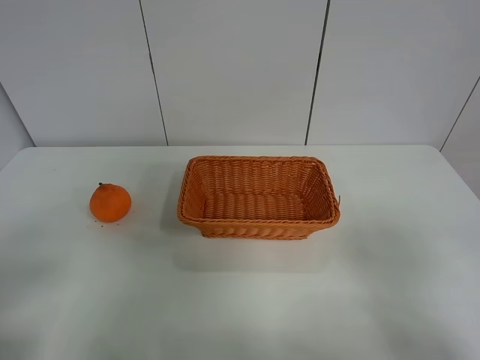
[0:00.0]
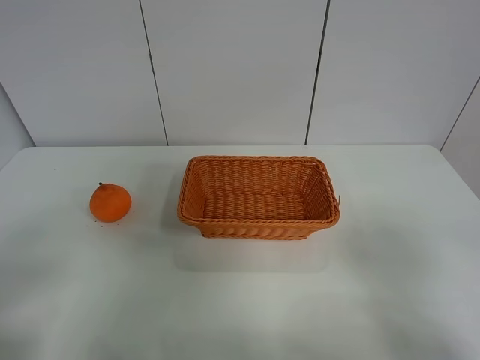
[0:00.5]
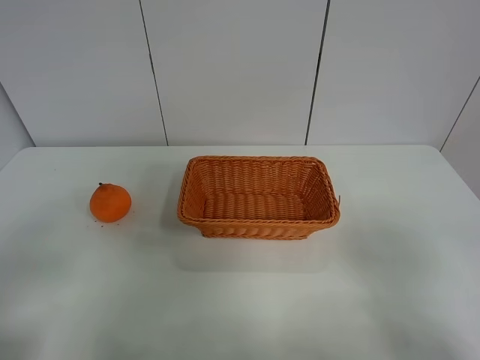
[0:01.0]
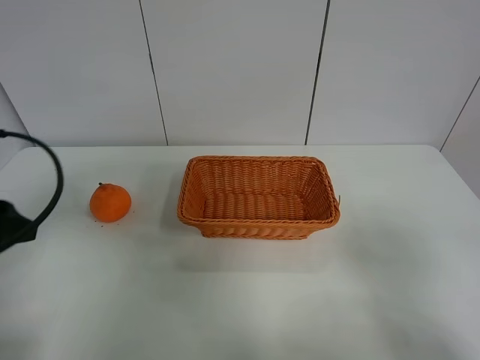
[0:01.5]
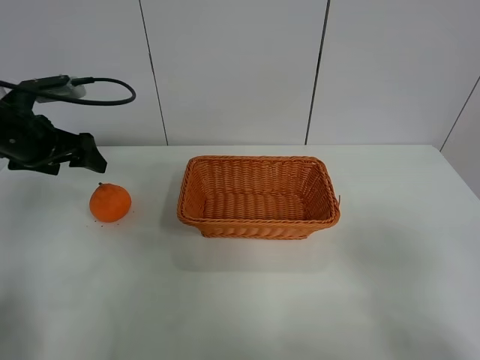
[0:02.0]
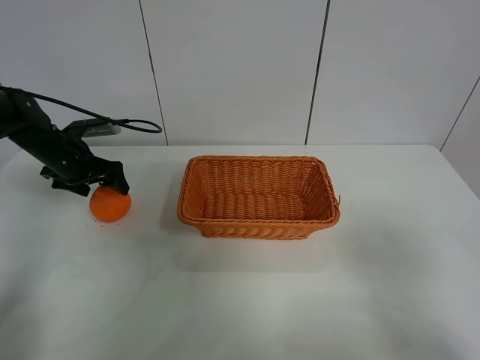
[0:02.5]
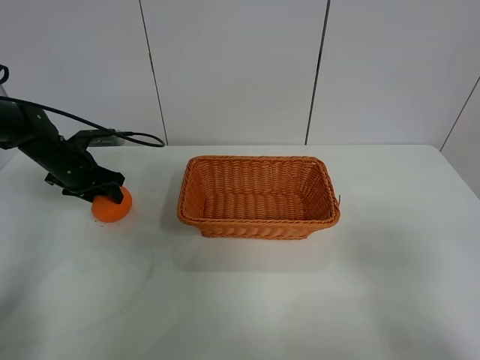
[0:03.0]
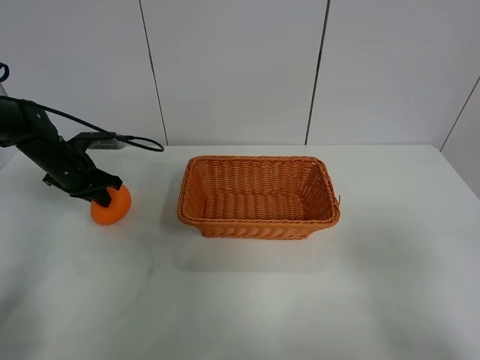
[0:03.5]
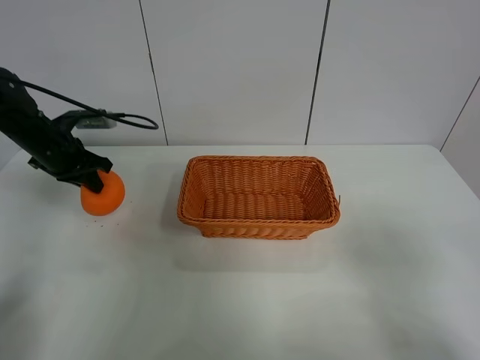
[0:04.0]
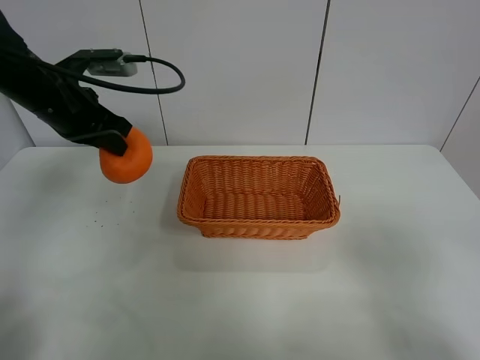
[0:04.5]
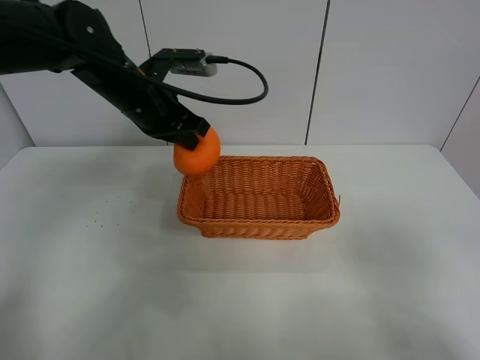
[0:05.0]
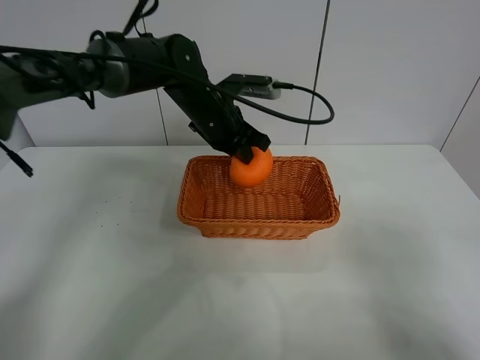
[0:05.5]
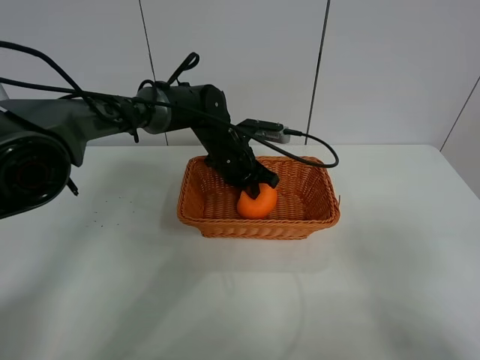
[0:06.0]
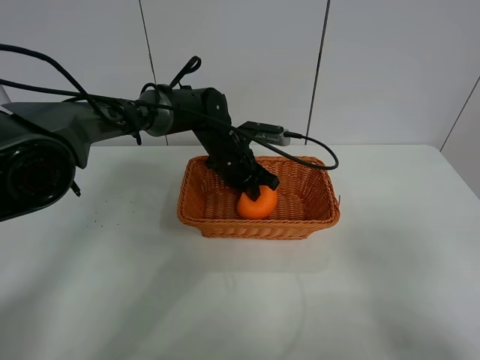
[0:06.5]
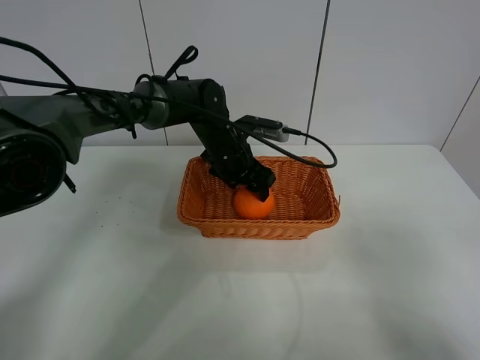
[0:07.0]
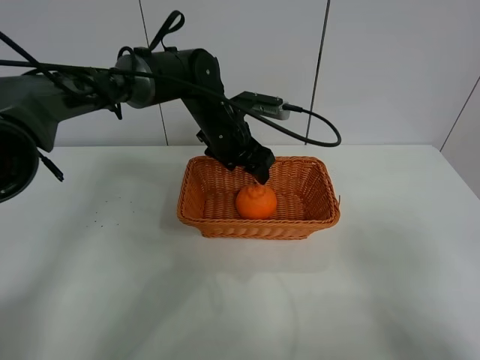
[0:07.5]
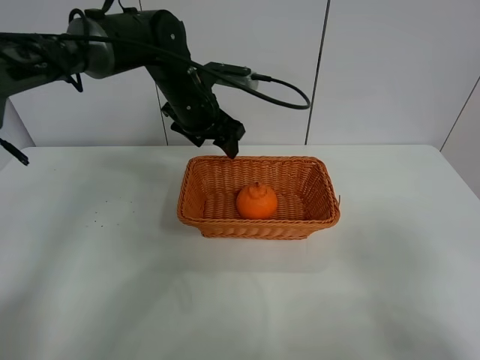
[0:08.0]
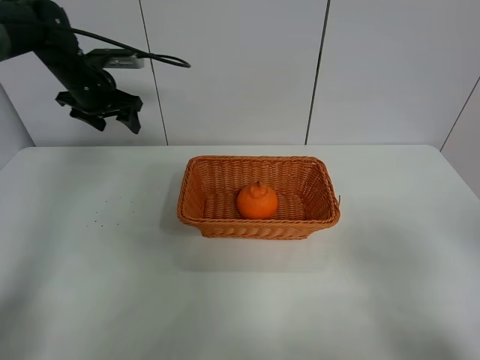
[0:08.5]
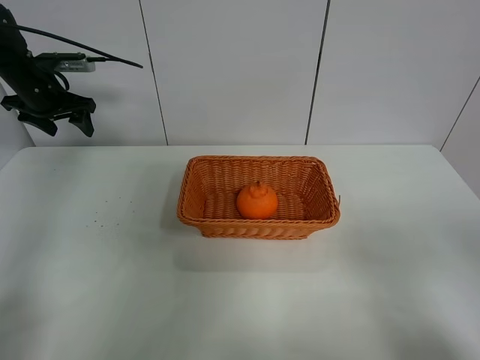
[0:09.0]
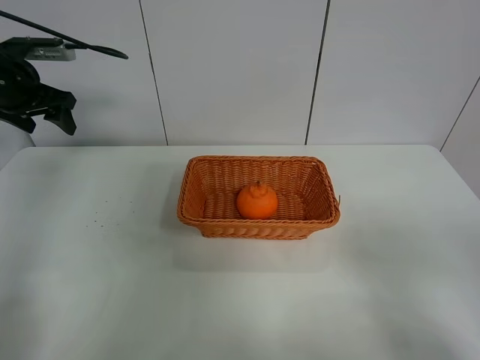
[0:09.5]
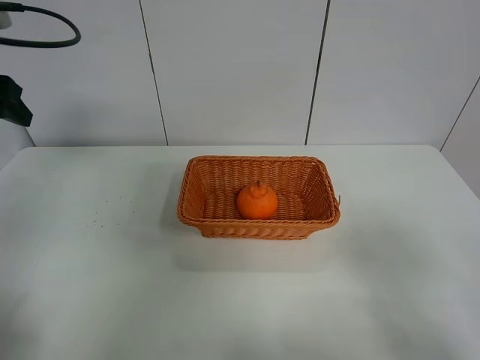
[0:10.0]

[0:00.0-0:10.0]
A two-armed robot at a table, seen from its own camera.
Task of the whole recording: left gripper grabs oranges and puts them in the basket.
Step, 0:00.0 to 0:03.0: Grasp the orange with left gripper.
Step, 0:03.5 to 0:08.0: Place the orange in the basket with left gripper.
0:00.0 to 0:02.0: The left gripper travels forward by roughly 35 cm.
0:02.0 to 0:04.0: The left gripper goes downward and returns, approximately 10 cm each way, and closes its fingers.
0:04.0 to 0:06.0: The left gripper is displaced to the right by about 30 cm.
0:06.0 to 0:08.0: The left gripper travels upward and to the left by some 10 cm, and opens its fingers.
0:08.0 to 0:10.0: The left gripper moves to the left, backward and upward, some 30 cm.
